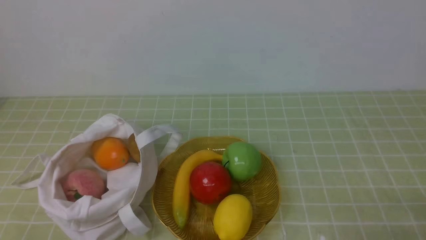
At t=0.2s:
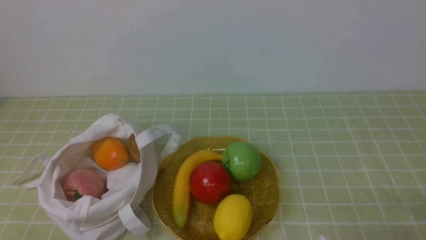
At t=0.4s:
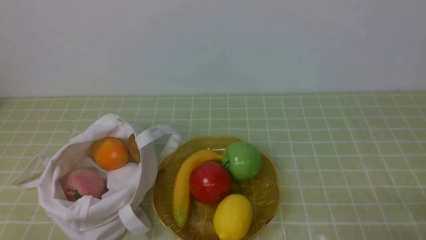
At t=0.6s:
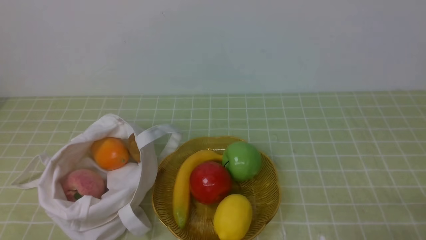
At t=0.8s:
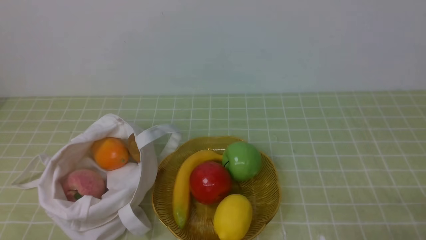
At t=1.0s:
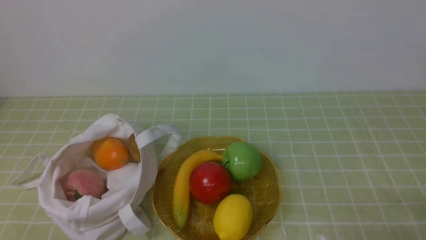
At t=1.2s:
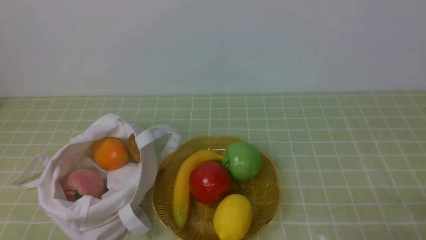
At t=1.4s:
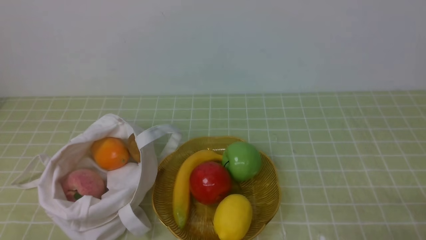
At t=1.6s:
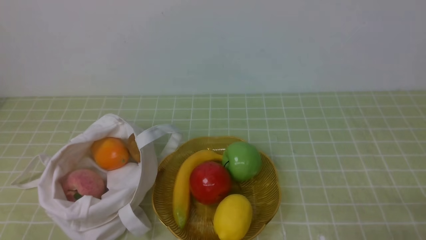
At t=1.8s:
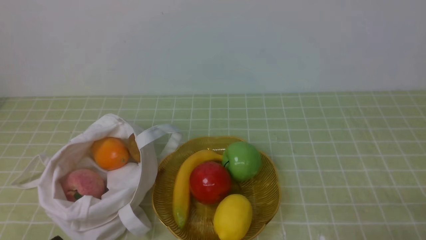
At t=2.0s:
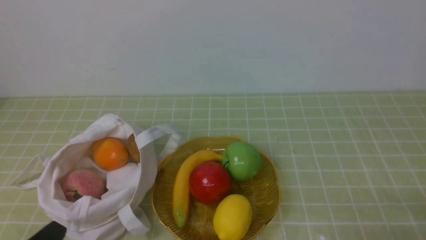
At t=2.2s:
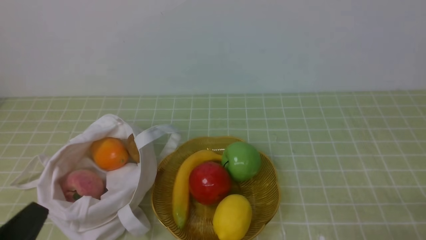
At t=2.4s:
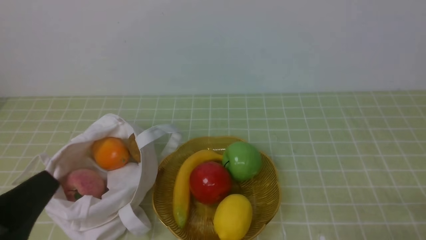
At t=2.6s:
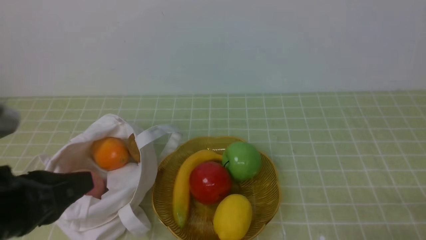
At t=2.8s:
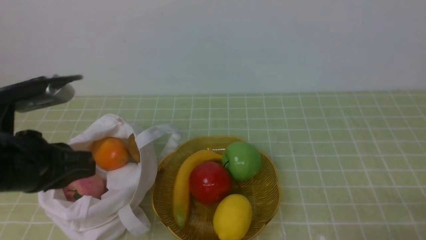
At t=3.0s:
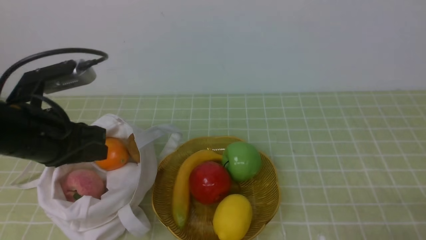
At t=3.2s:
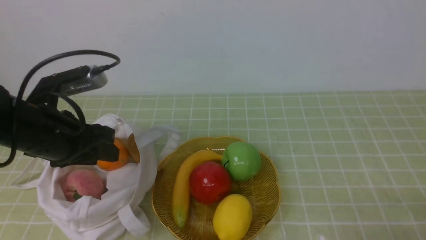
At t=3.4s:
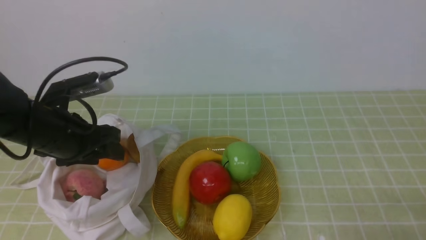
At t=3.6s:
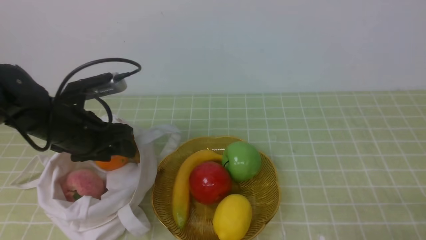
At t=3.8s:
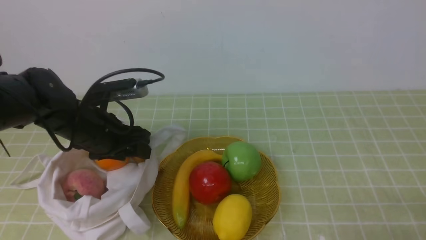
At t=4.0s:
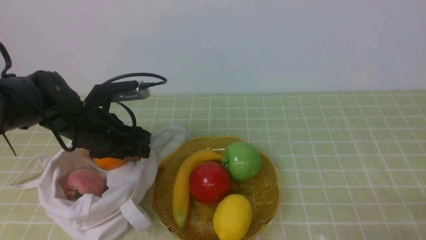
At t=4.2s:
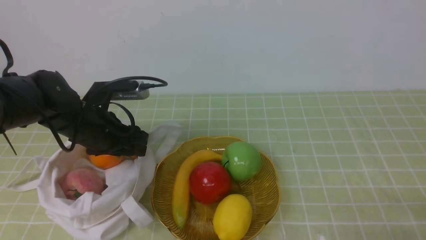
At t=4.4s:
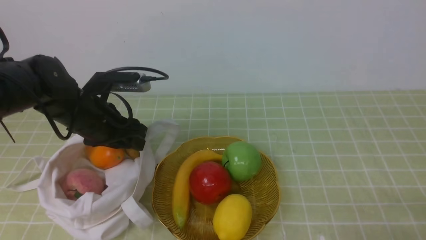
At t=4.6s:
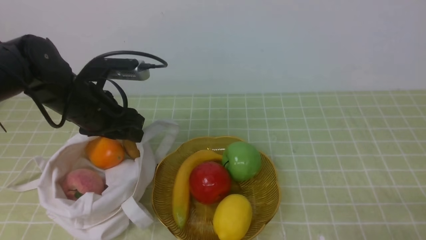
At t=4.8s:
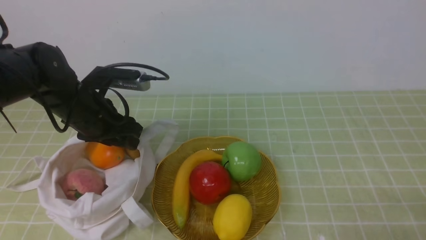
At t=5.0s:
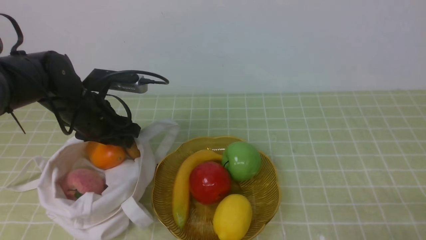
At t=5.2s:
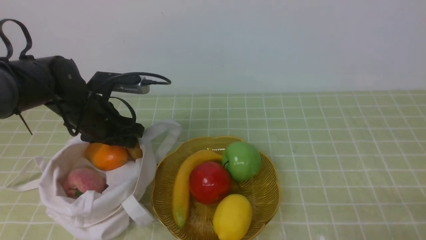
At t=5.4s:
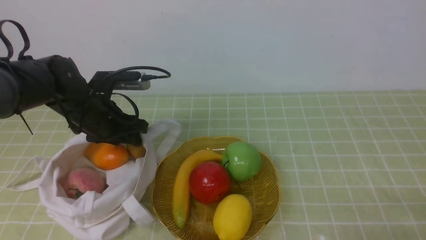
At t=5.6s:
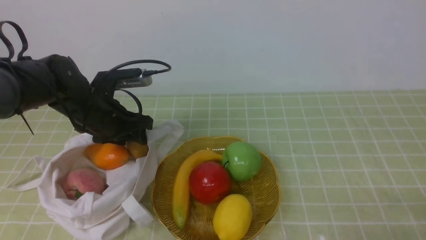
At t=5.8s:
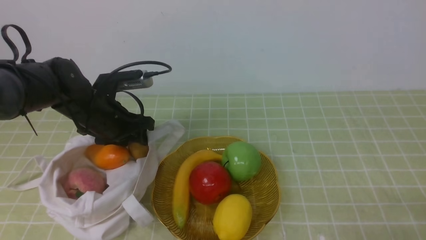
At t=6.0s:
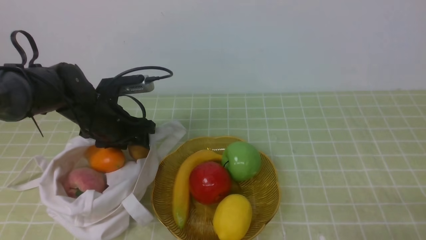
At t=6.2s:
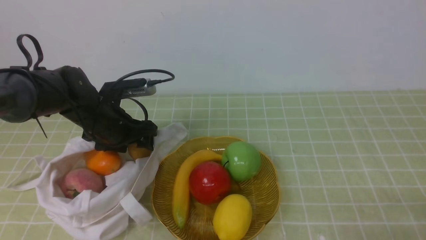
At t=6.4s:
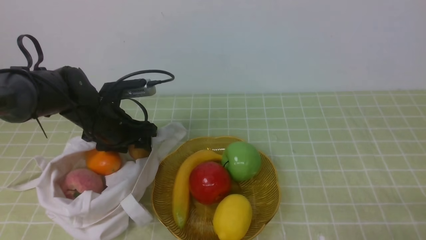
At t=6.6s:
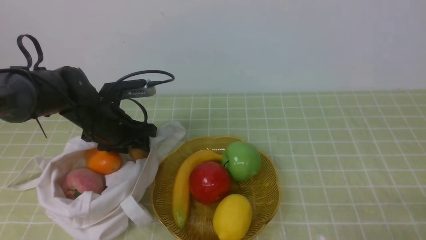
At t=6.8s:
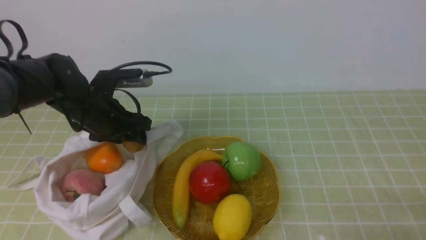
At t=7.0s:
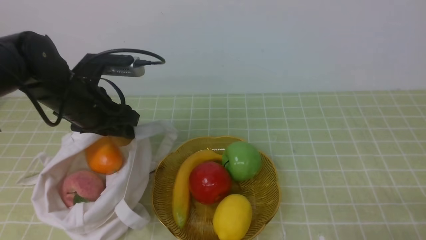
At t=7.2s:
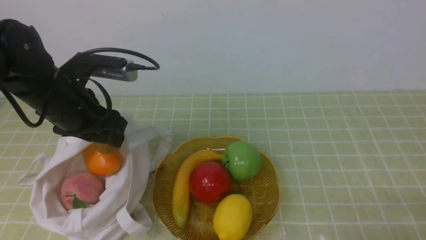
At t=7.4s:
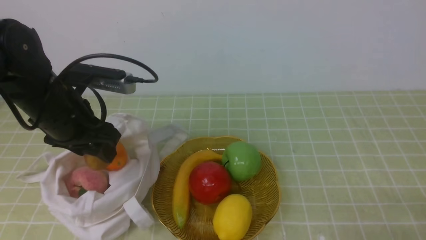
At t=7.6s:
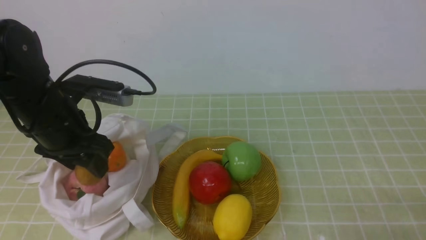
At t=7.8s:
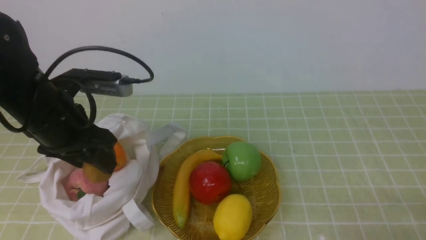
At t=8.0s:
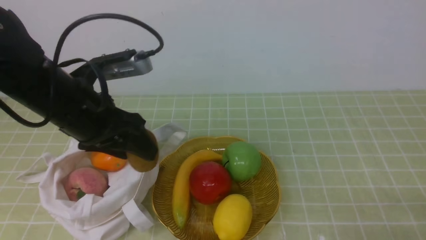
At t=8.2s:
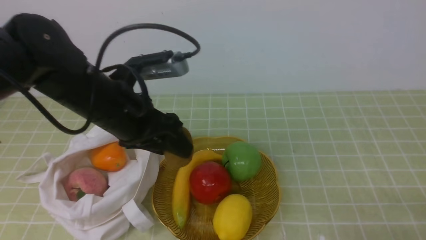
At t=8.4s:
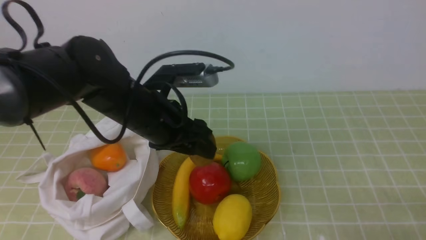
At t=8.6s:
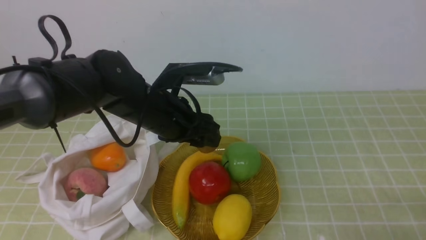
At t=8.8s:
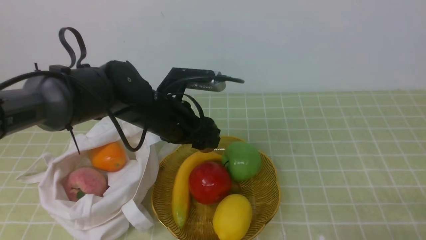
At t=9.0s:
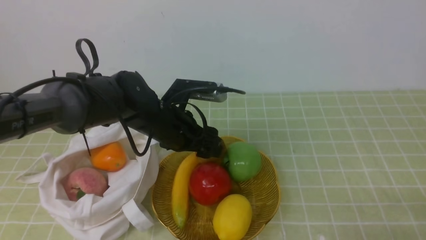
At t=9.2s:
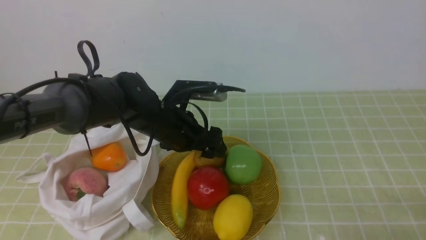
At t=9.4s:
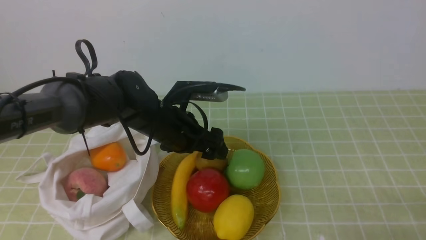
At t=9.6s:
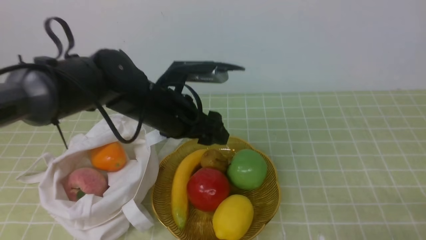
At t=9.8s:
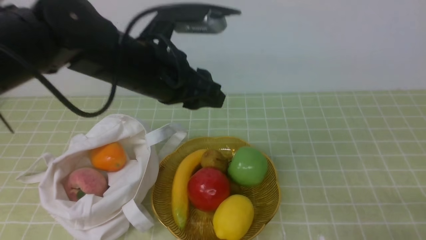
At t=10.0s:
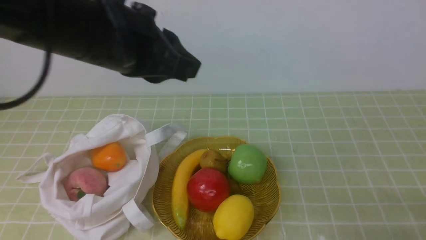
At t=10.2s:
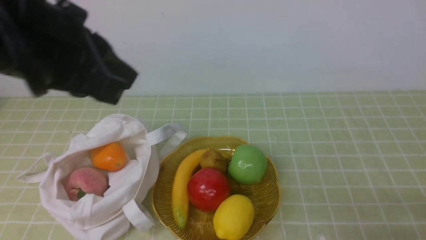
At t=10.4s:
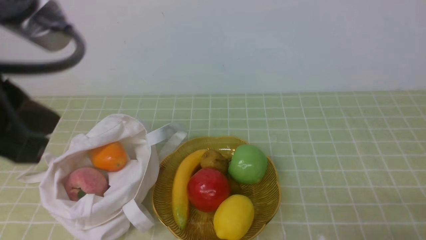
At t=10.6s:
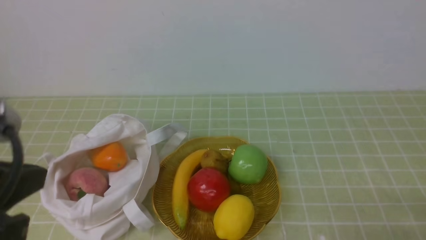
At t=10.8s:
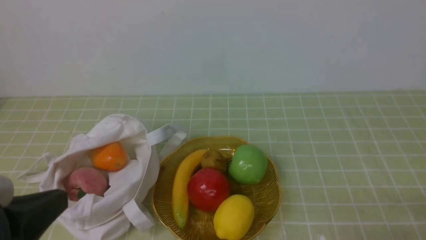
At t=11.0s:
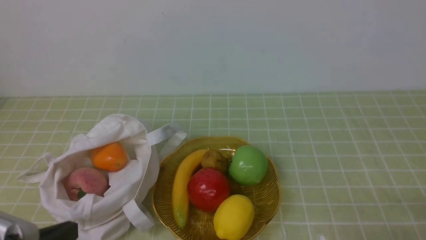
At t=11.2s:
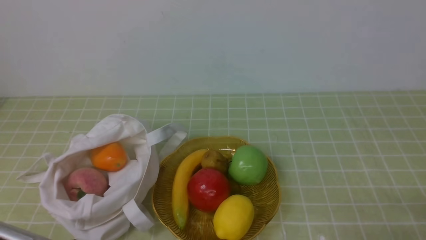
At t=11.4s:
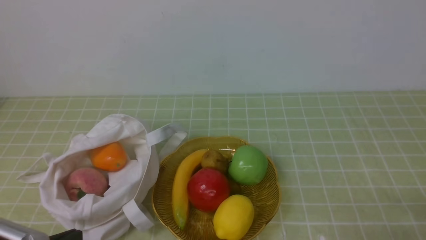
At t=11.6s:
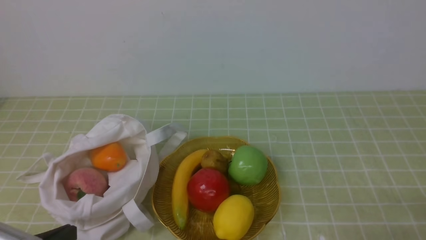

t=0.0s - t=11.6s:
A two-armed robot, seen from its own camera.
Step, t=0.0s - t=6.8s: use the left arm to grab a kiwi from the bag.
Step, t=7.2s - t=9.4s: use the left arm to put the kiwi into the empty plate on the right.
t=1.4s - t=2.8s: The left gripper heads forward and upward, covering about 20 cm.
t=2.8s - t=4.4s: The left gripper moves forward and downward, approximately 15 cm, and opens up.
t=4.4s - t=5.8s: There are only small adjustments of the grippers.
t=5.8s - t=7.2s: The left gripper shifts roughly 10 cm upward and backward.
t=7.2s - t=8.8s: The left gripper is displaced to the right and downward by about 15 cm.
t=8.8s - t=10.2s: The left gripper moves upward and backward, approximately 25 cm, and closes its fingers.
t=10.2s - t=11.6s: The left gripper shifts about 25 cm downward and backward.

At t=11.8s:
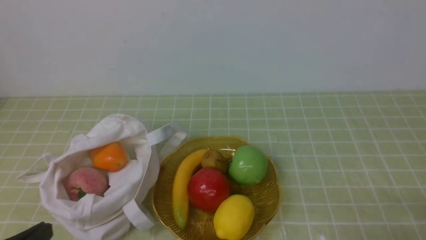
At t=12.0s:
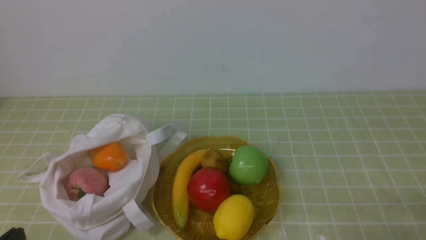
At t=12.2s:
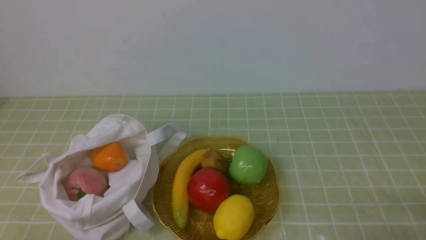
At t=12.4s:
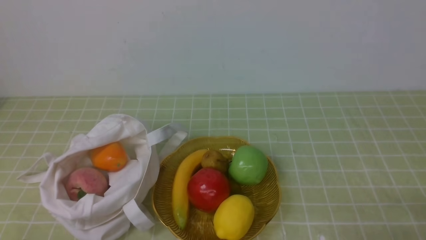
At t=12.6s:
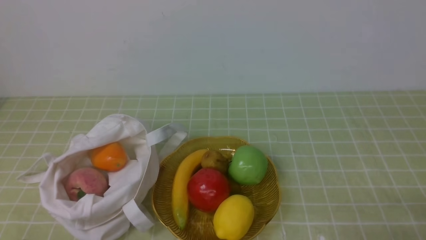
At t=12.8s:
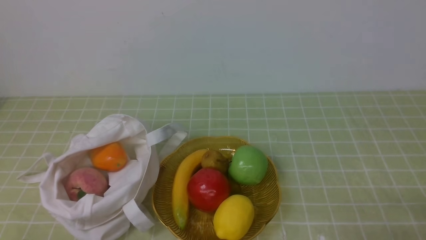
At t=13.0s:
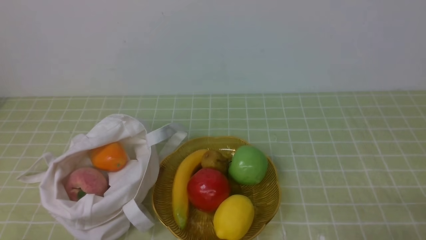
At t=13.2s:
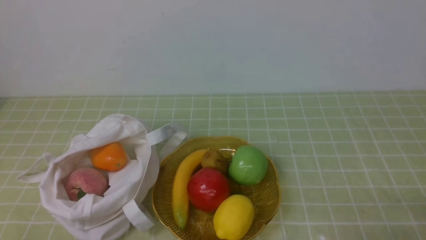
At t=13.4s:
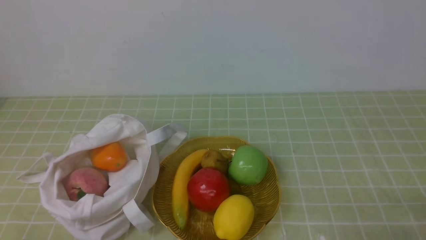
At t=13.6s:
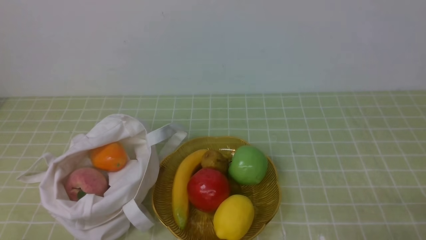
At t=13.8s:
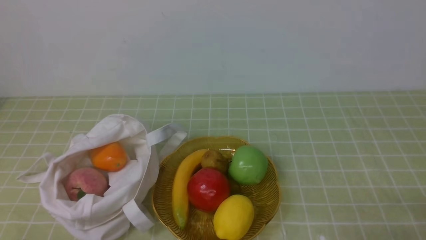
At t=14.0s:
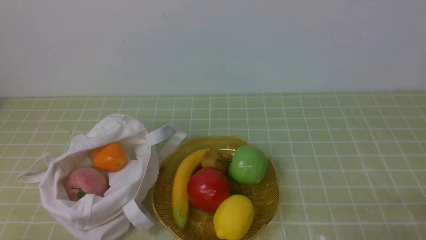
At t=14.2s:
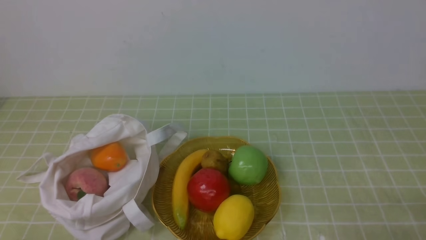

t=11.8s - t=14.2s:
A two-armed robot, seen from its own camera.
t=13.0s - t=14.2s: Neither gripper changes place.
